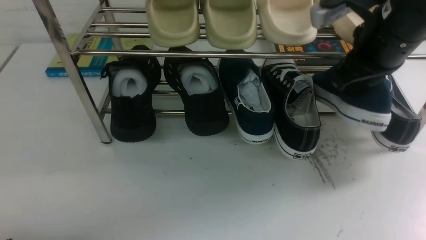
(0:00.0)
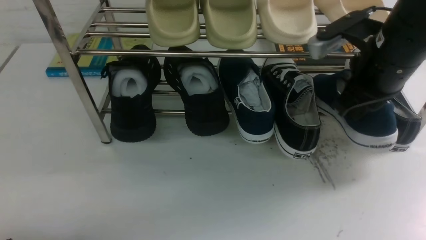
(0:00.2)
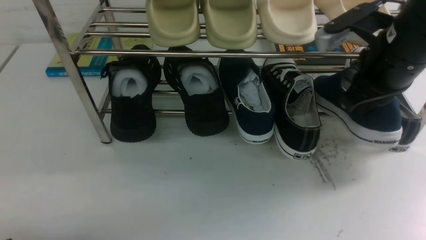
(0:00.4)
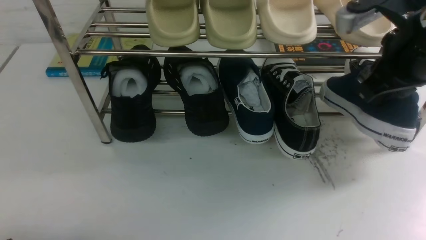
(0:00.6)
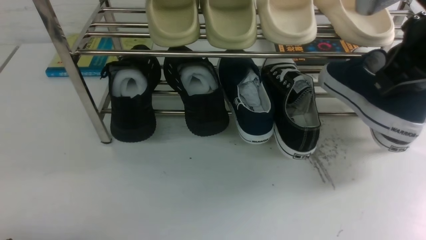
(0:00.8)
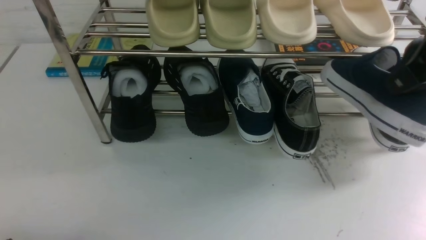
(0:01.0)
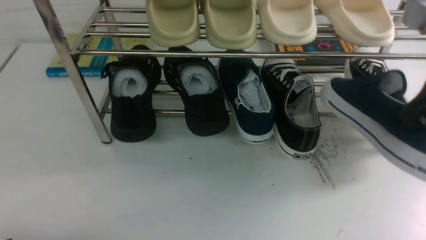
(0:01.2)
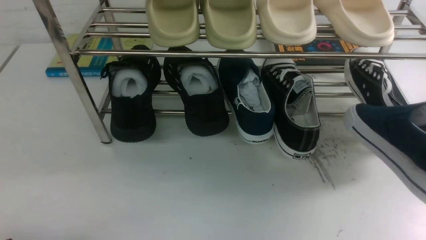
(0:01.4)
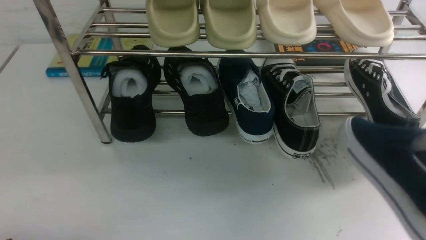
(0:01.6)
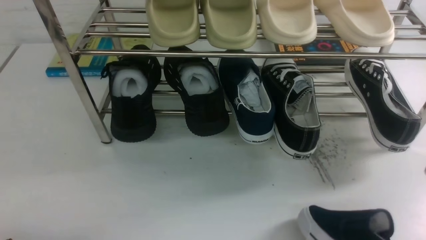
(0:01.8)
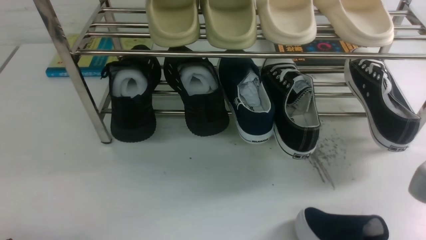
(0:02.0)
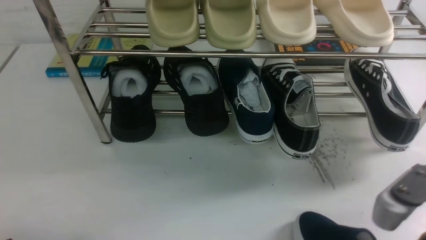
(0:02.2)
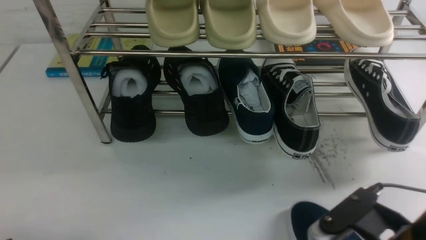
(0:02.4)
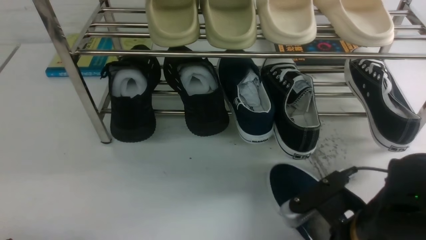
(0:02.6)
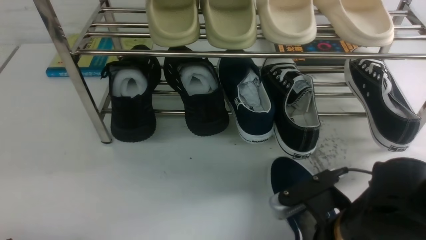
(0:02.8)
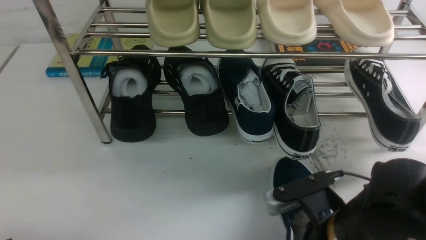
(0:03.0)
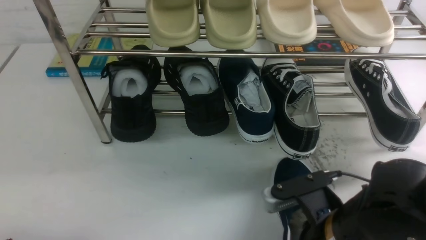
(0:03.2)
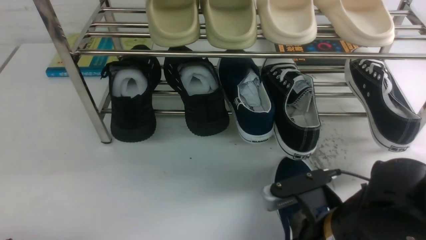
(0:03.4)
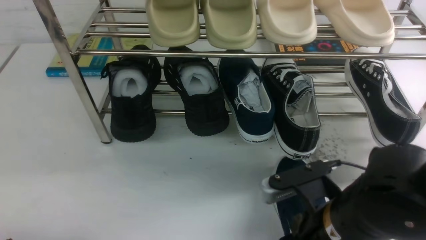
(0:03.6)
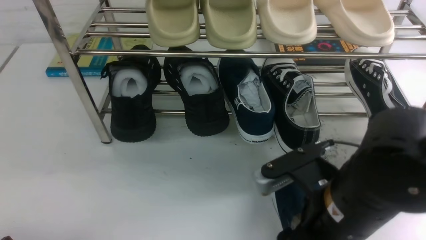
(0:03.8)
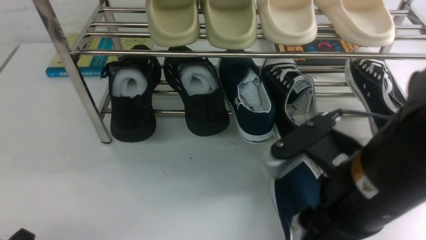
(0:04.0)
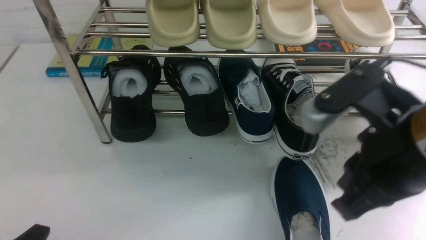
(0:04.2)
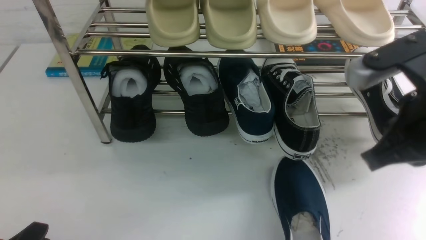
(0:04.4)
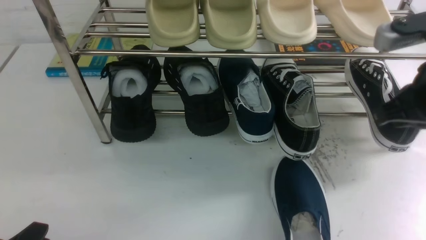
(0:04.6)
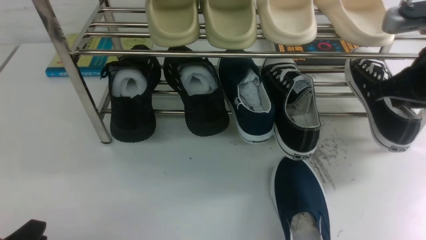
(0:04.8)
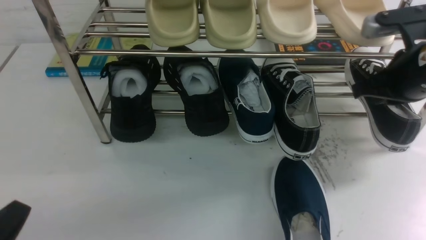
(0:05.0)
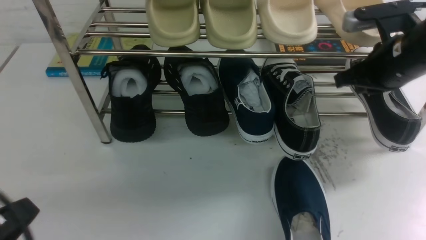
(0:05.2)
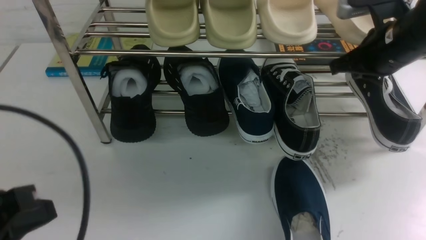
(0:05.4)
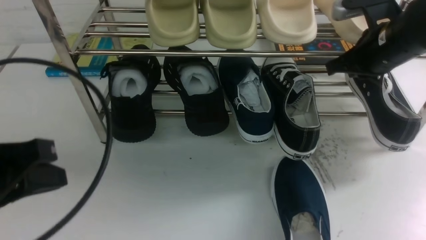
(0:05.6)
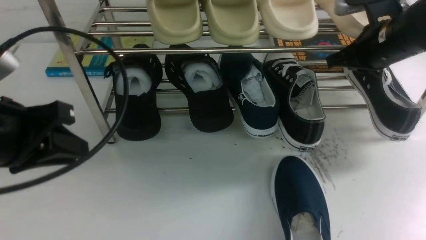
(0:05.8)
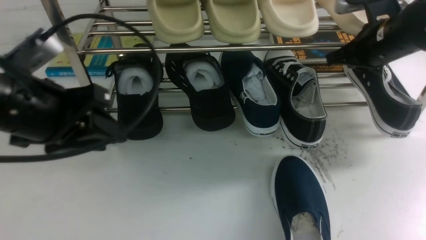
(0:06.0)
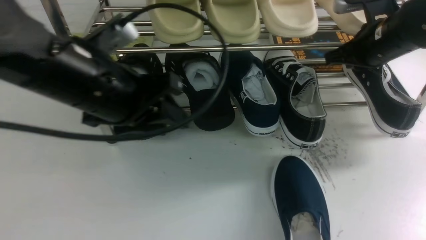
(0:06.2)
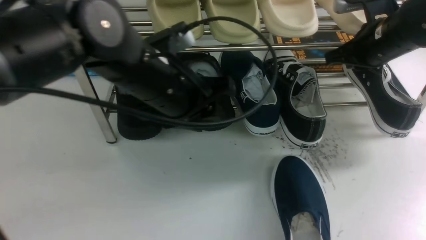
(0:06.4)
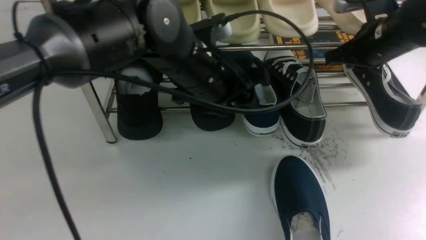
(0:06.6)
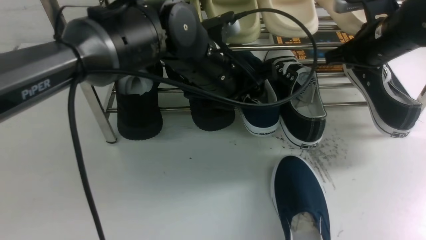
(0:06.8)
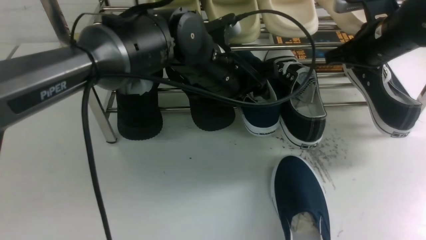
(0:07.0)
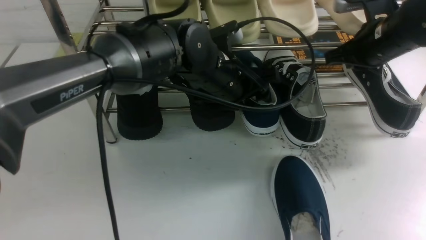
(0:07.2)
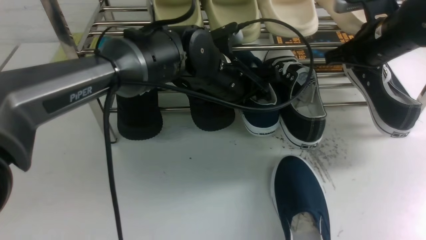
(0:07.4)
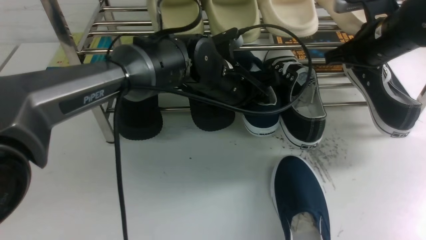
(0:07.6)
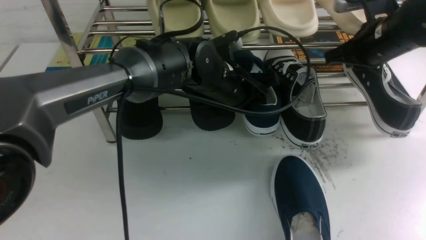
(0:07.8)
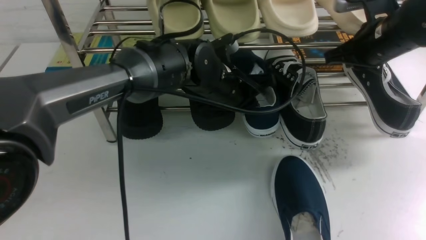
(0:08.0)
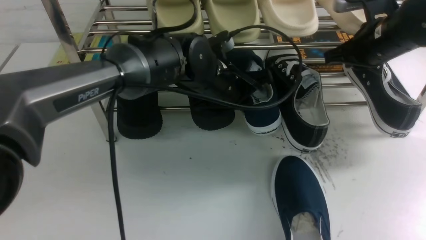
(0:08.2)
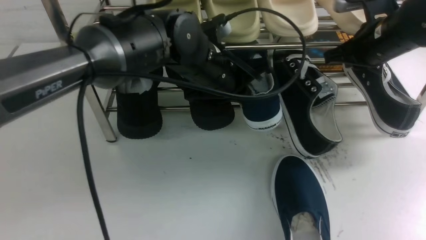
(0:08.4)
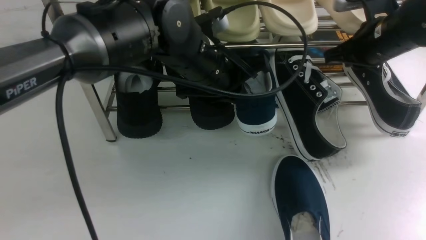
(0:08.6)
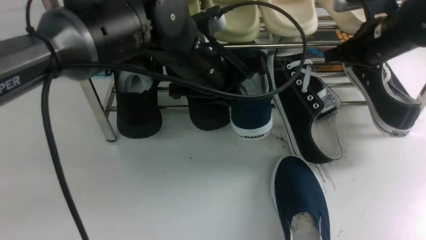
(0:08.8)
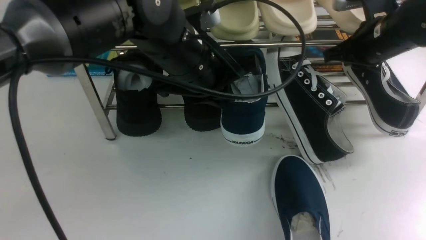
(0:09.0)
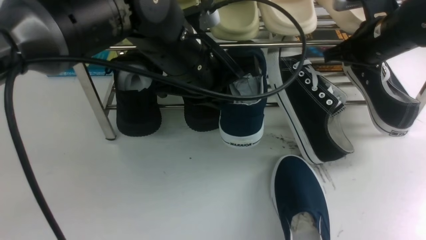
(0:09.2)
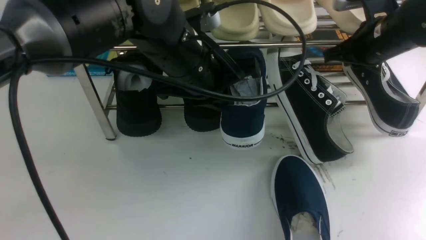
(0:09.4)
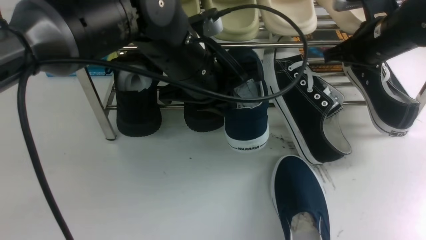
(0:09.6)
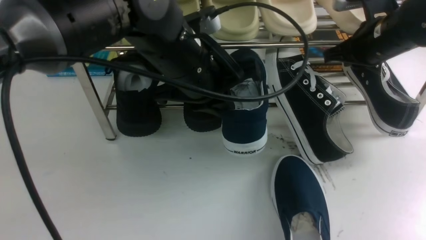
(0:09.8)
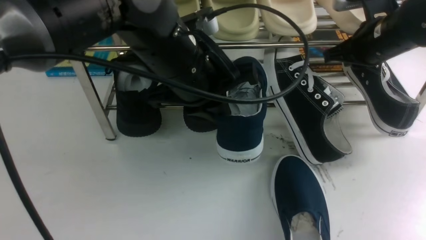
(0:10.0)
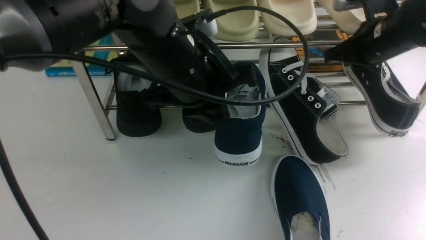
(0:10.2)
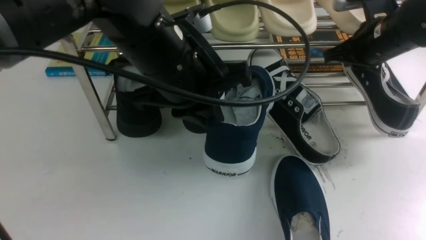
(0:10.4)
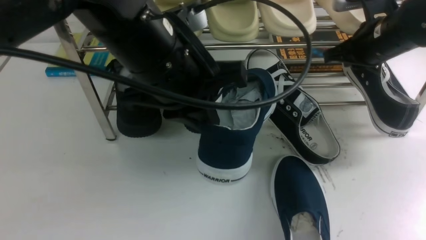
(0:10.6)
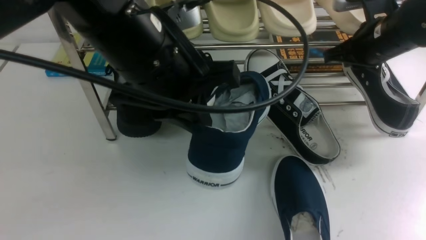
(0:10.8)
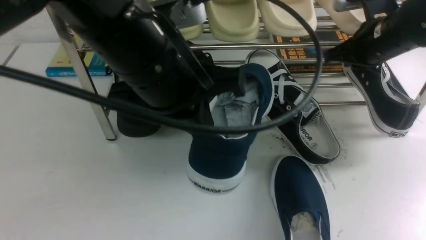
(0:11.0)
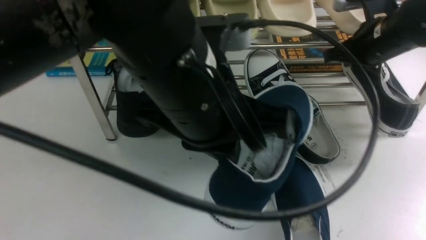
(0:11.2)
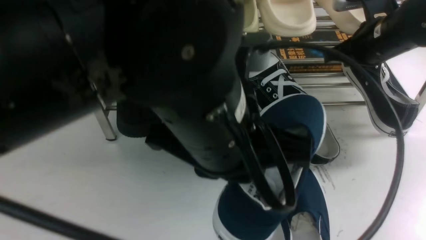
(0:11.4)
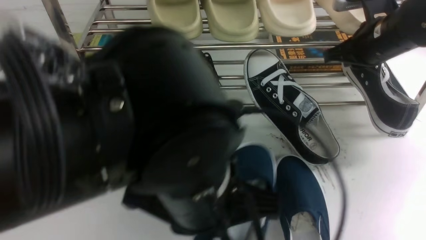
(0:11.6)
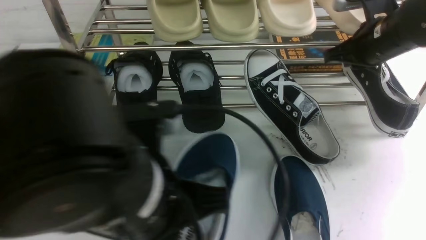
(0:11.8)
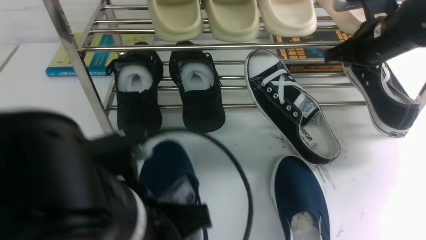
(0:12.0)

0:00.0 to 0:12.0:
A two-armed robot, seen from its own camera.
Step, 0:00.0 to 0:03.8: use the right arm to take out the clamped shoe from the shoe rack and put it down.
Step, 0:04.0 to 0:08.4: use the left arm to clamp a shoe in the middle of the shoe rack.
0:00.0 to 0:01.6: The right gripper travels backward by approximately 20 cm.
0:01.6 to 0:03.0: The right gripper is displaced downward and to the left by some 20 cm.
0:03.0 to 0:04.4: The right gripper heads upward and to the right, covering some 15 cm, and opens and closes again.
0:04.4 to 0:06.0: The right gripper travels forward by about 20 cm, while the left gripper shifts approximately 25 cm forward and upward, and closes and opens again.
0:06.0 to 0:07.6: The left gripper shifts approximately 25 cm to the right, forward and downward.
0:07.6 to 0:09.0: The left gripper travels upward and backward by roughly 10 cm, and closes up.
0:09.0 to 0:10.4: The left gripper shifts by about 5 cm.
0:10.4 to 0:12.0: The left gripper shifts about 15 cm backward and downward.

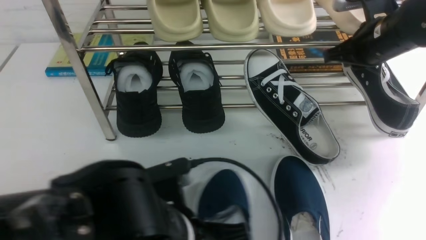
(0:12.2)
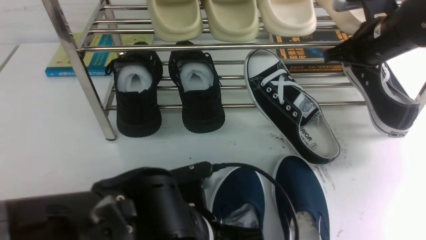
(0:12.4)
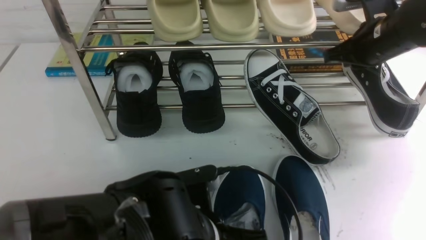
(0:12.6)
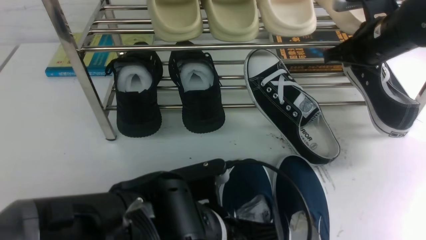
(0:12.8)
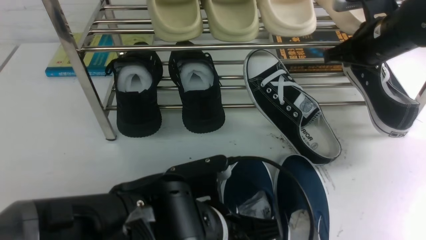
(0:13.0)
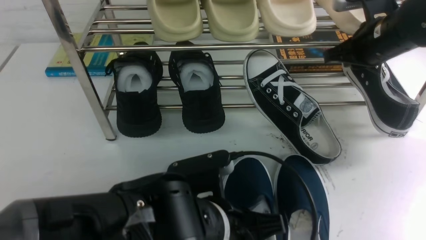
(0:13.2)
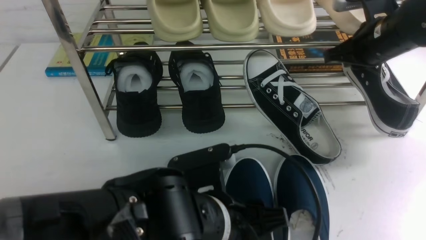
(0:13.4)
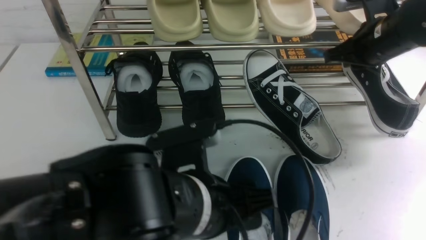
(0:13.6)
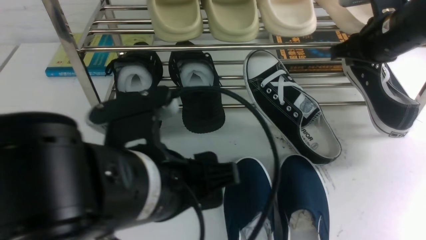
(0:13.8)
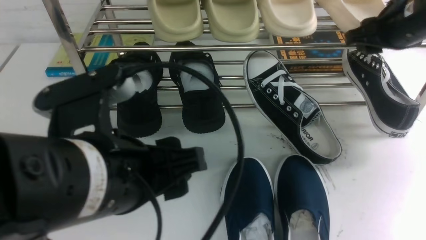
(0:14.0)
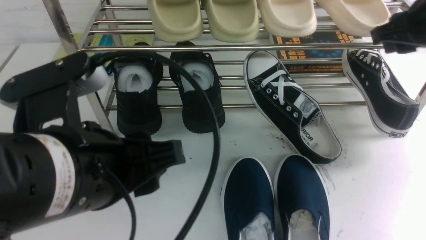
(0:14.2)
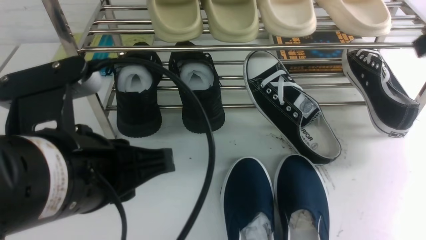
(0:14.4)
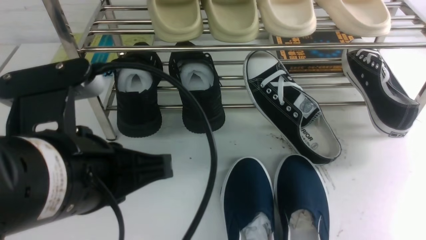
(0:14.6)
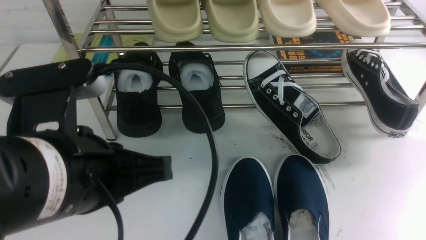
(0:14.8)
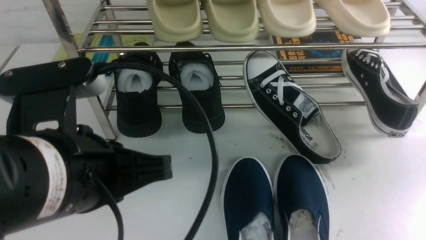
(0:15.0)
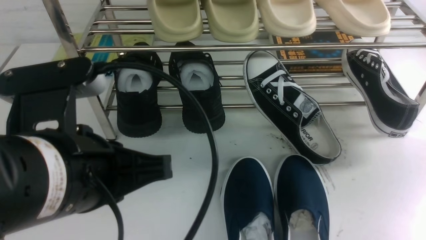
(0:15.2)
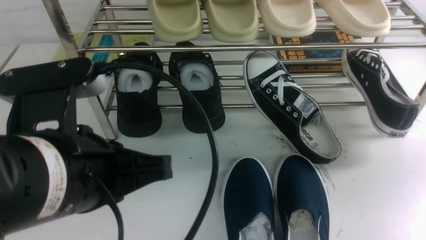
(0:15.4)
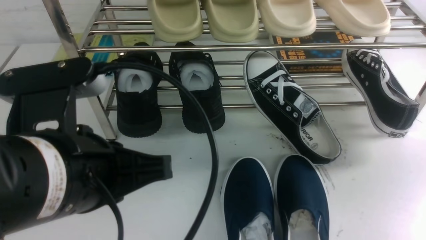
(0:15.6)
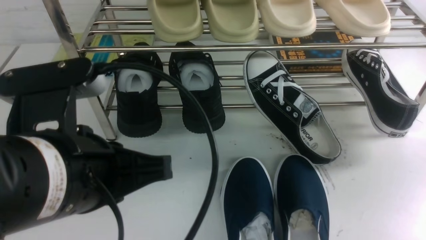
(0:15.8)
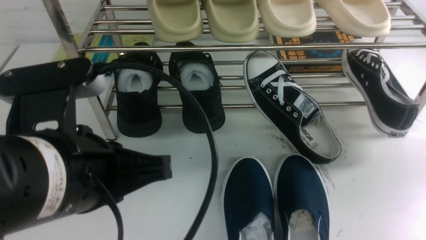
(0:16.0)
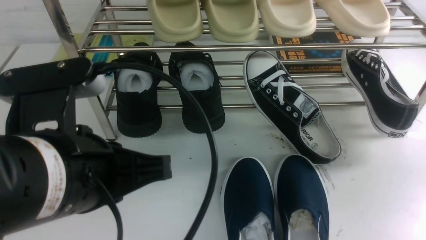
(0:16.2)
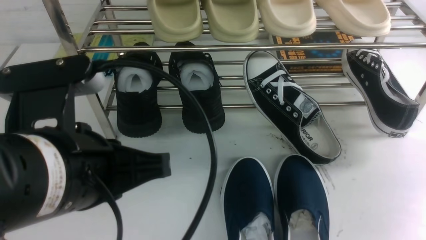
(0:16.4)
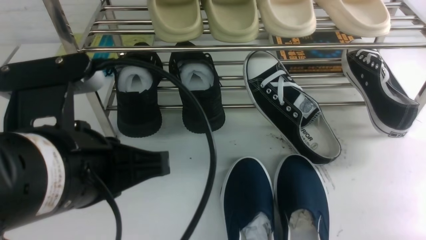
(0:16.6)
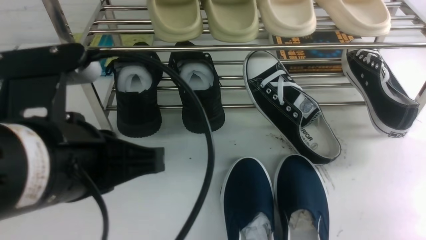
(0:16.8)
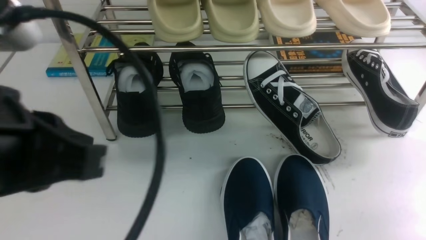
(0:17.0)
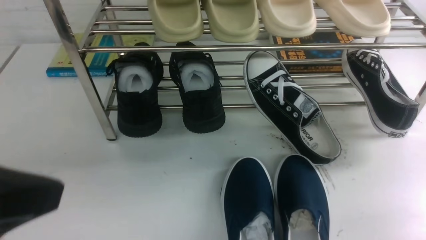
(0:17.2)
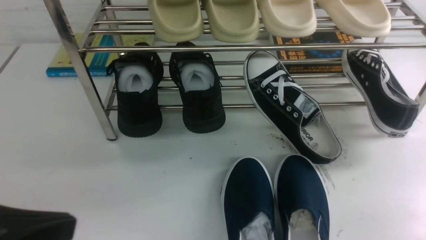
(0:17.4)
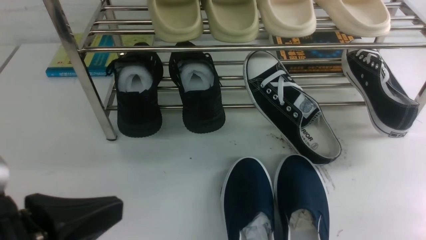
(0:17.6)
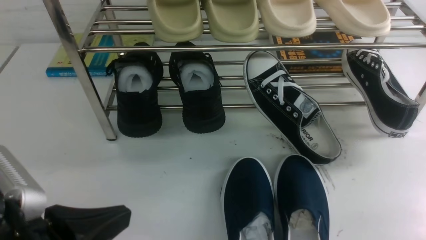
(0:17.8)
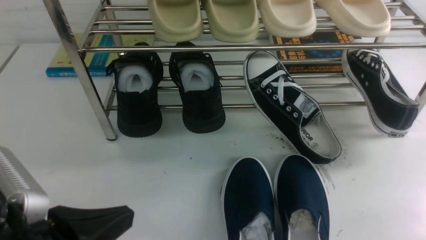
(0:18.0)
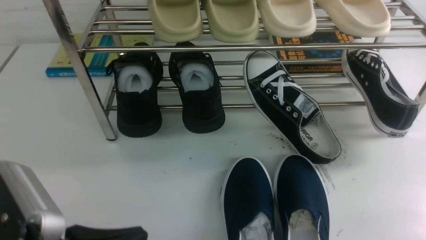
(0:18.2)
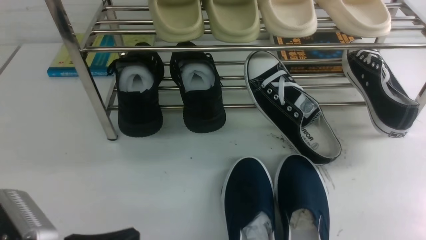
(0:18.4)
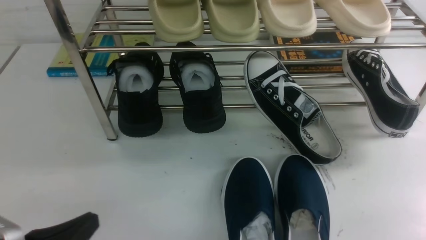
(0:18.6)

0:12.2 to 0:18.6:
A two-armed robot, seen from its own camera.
0:12.2 to 0:13.8: The left gripper heads upward, covering about 5 cm, and opens. The right gripper opens.
0:13.8 to 0:15.4: The right gripper is displaced backward by about 30 cm, and closes up. Meanwhile the left gripper goes about 5 cm to the left, and closes.
0:15.4 to 0:17.0: The right gripper travels downward by roughly 10 cm, while the left gripper ends up some 5 cm from where it was.
0:17.0 to 0:18.6: The left gripper travels downward by some 20 cm.
